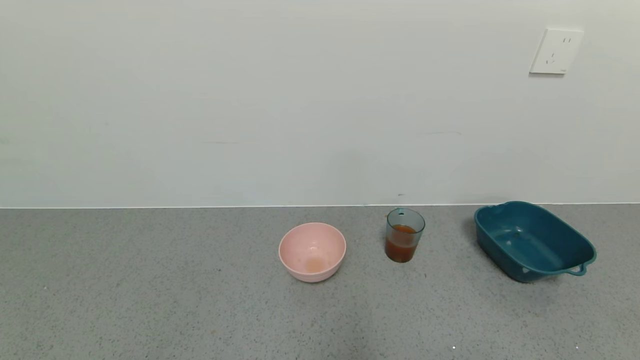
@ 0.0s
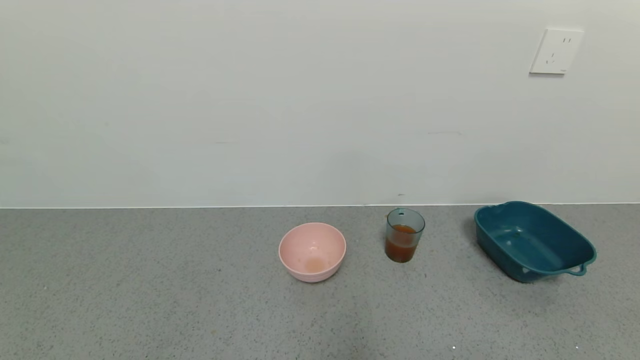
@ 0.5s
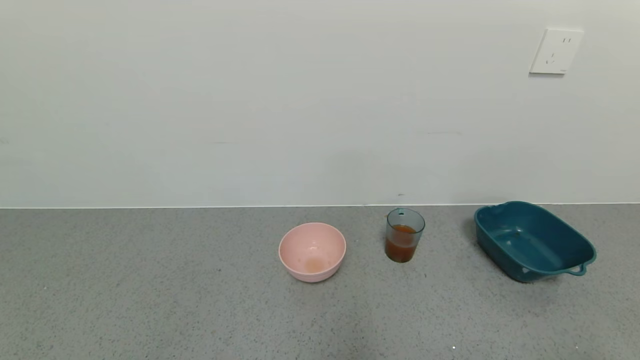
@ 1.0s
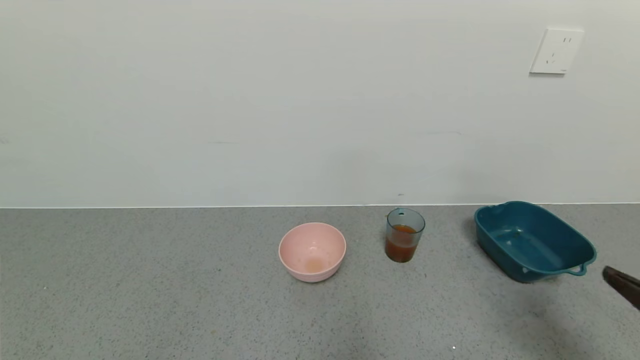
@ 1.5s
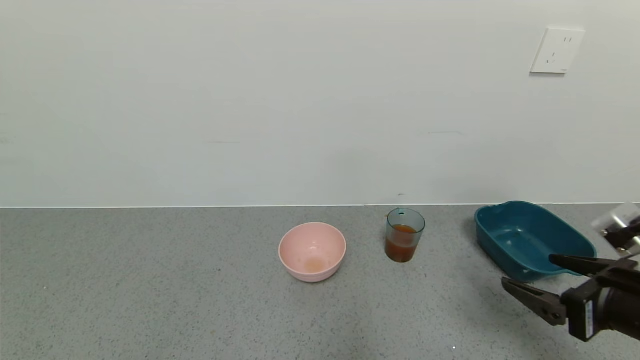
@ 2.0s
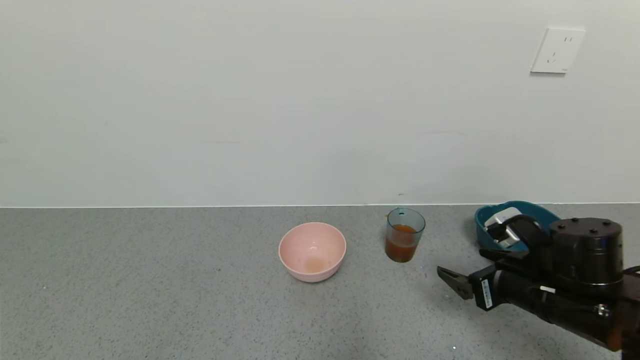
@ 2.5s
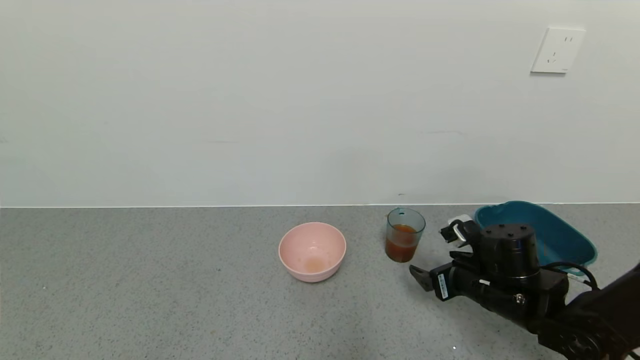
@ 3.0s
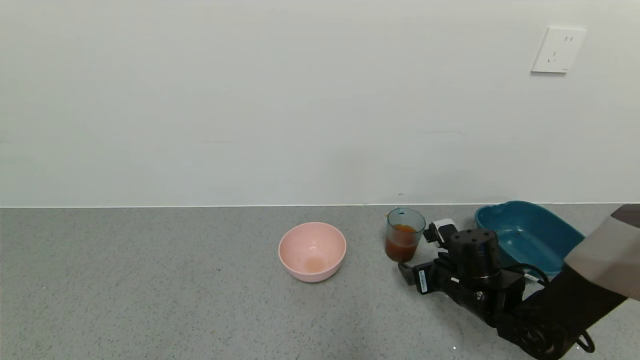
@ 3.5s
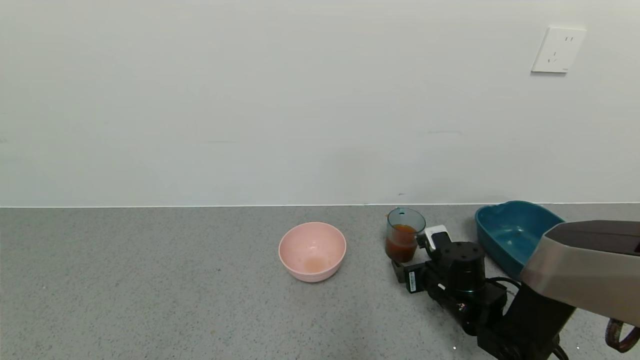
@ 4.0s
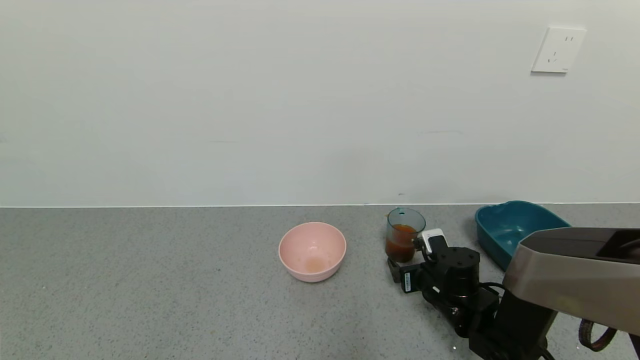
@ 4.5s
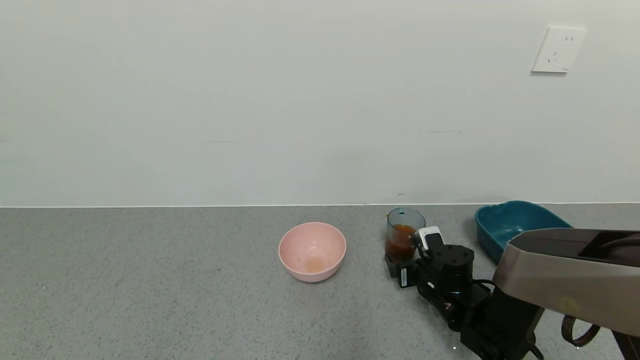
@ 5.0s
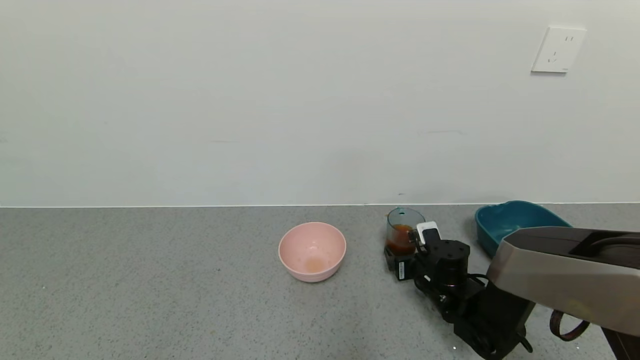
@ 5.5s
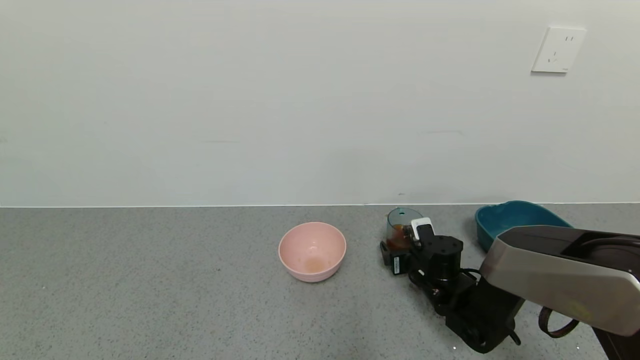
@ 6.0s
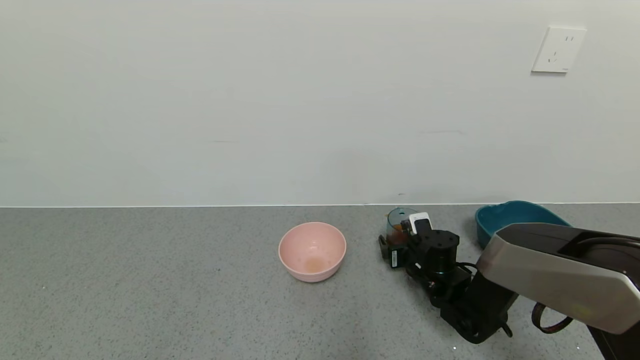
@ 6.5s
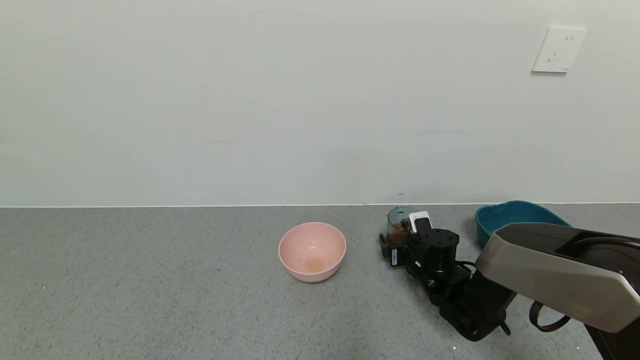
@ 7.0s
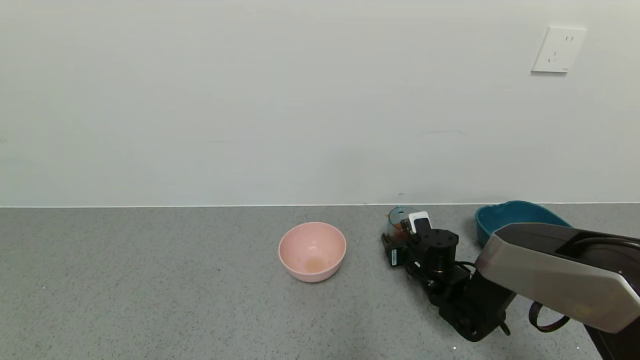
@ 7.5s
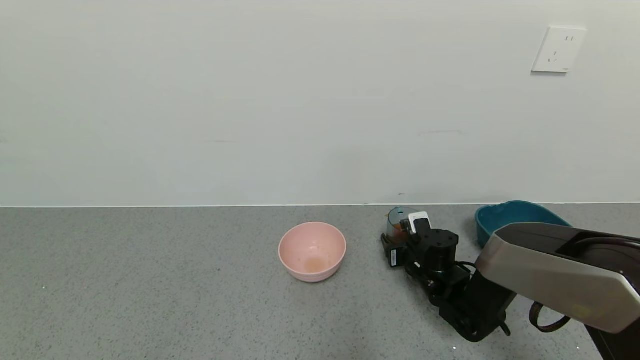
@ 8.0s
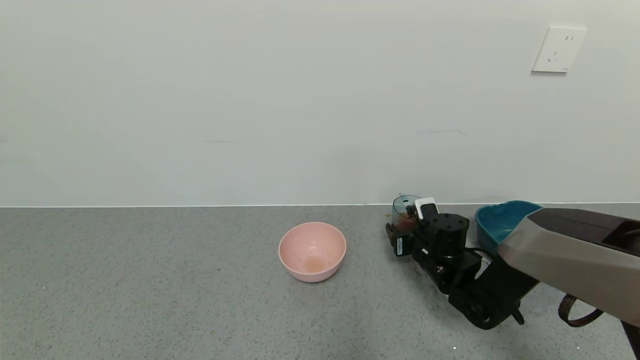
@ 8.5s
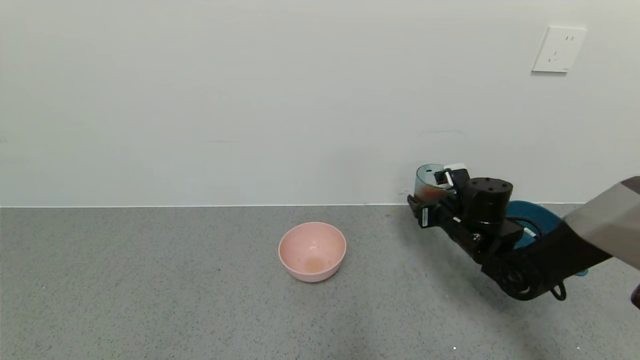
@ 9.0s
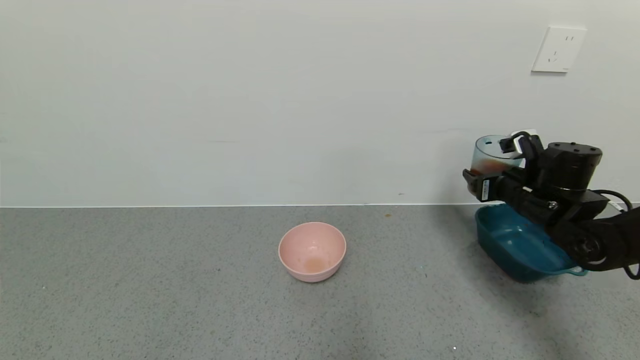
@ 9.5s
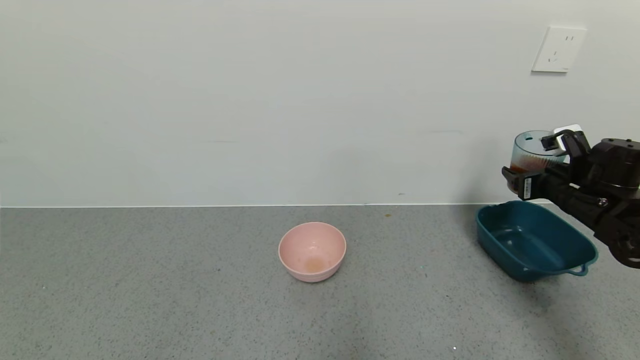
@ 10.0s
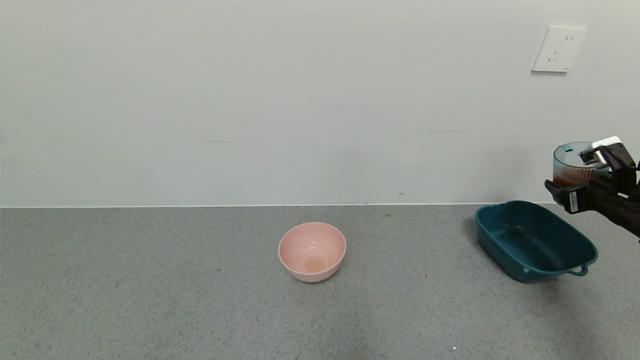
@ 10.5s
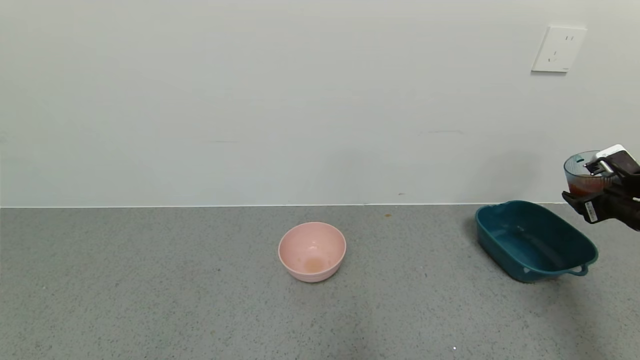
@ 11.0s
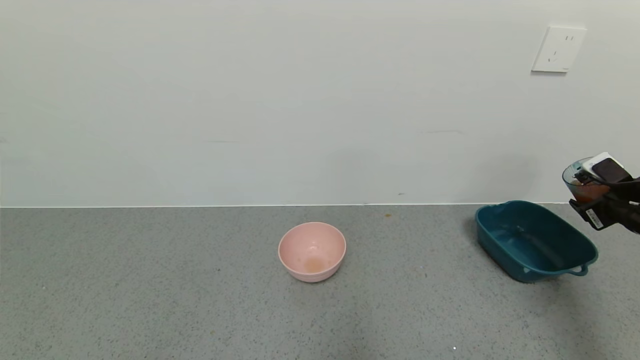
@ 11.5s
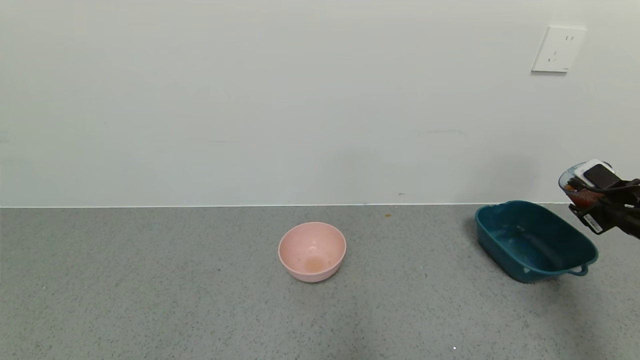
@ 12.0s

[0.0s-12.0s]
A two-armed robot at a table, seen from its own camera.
Task of the whole recording: use a gripper to pick up the cup and pour the liquid into a bowl or tray.
Step, 0.0s to 8.0s: Pick up blue cup filled with tea with right gripper.
0.0s to 2.0s: The right gripper is displaced forward and upward by some 20 cm.
2.0s to 4.0s: The right gripper travels downward, forward and to the left by some 25 cm.
4.0s to 6.0s: The right gripper shifts by about 5 cm.
6.0s to 8.0s: The right gripper closes its fingers.
8.0s to 10.0s: The right gripper is displaced to the right and upward by about 25 cm.
10.0s to 12.0s: The right gripper travels to the right by some 10 cm.

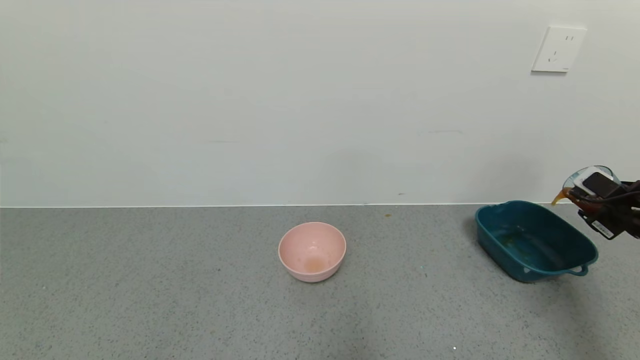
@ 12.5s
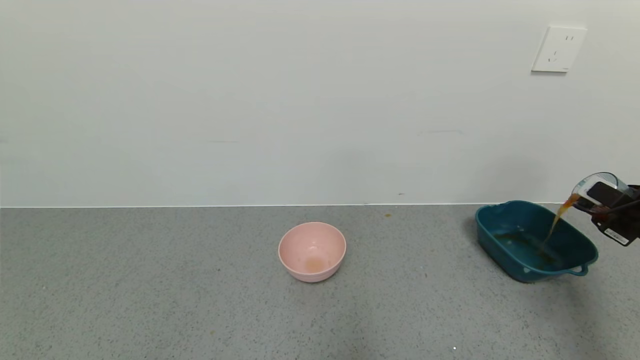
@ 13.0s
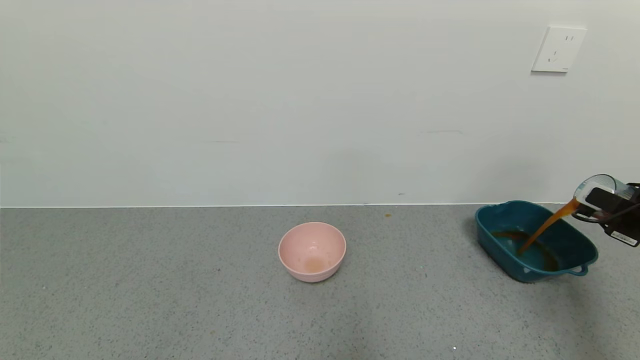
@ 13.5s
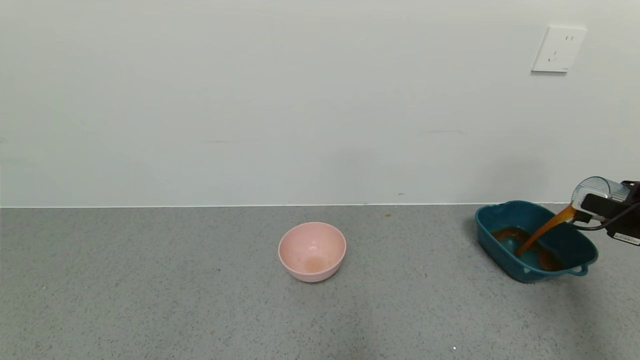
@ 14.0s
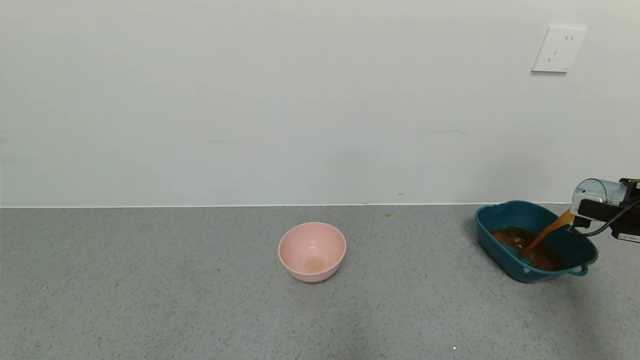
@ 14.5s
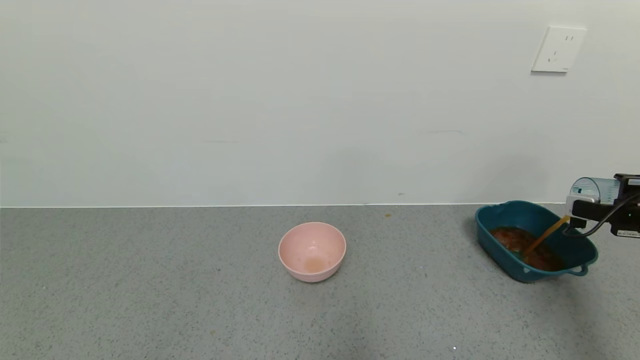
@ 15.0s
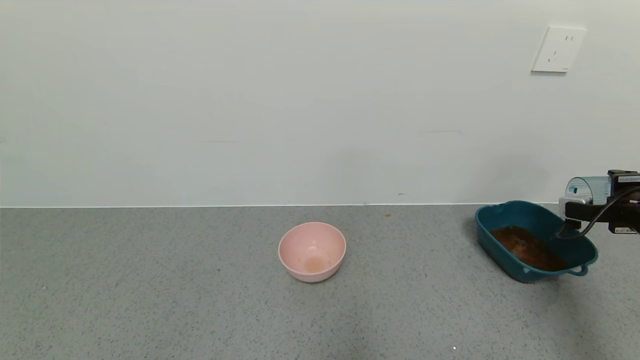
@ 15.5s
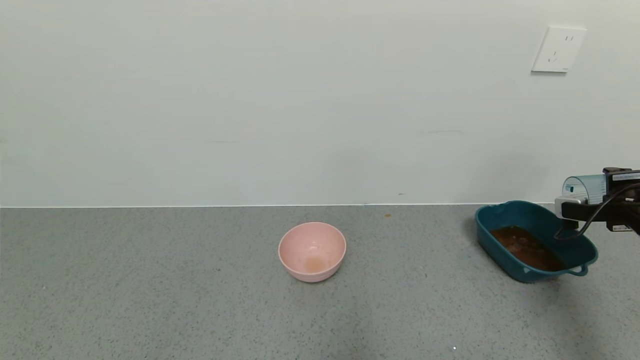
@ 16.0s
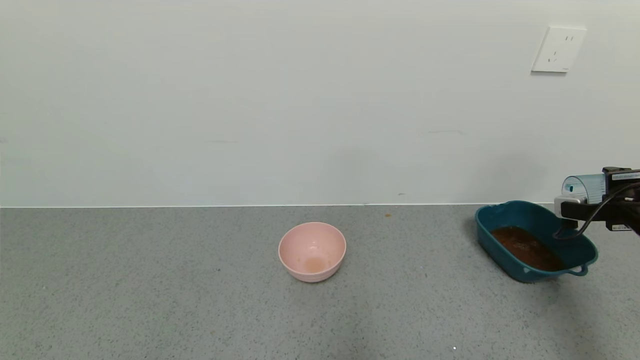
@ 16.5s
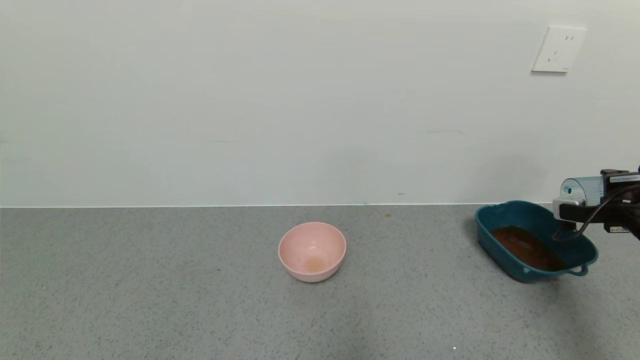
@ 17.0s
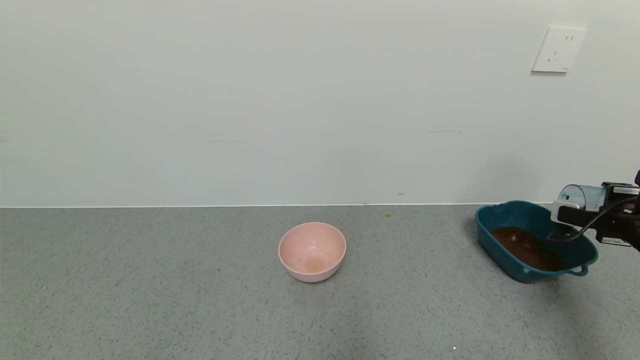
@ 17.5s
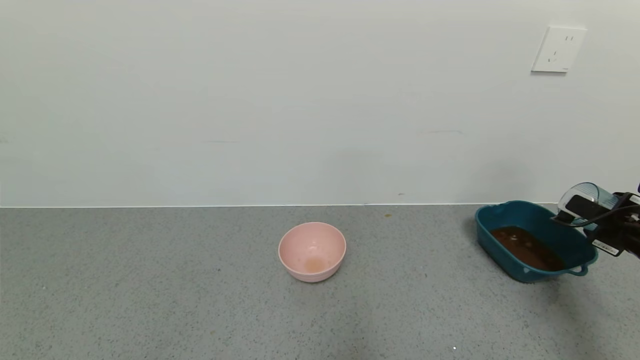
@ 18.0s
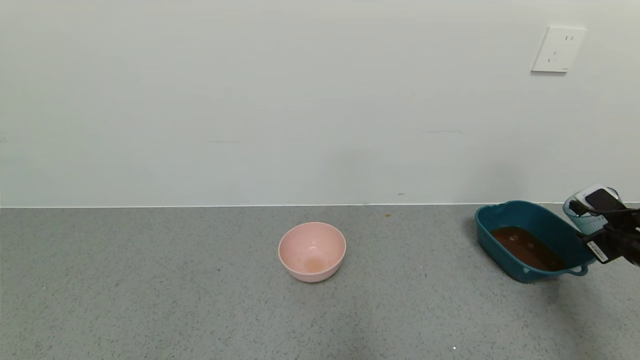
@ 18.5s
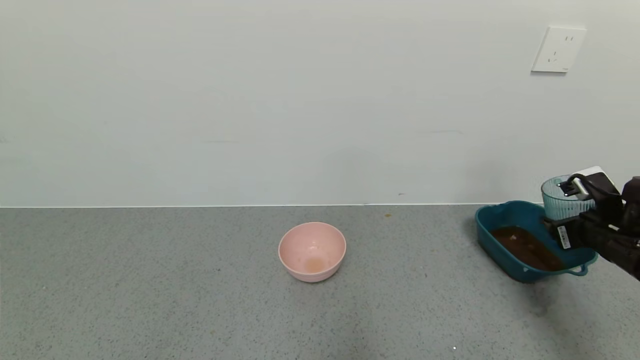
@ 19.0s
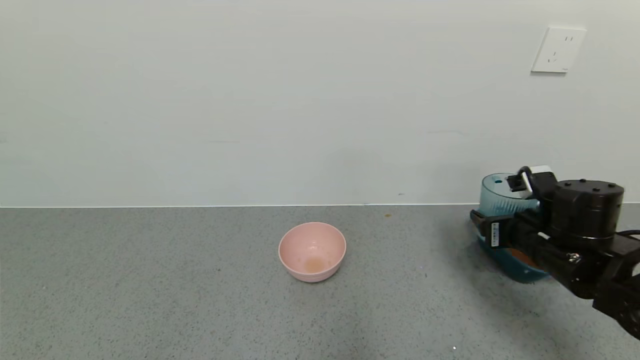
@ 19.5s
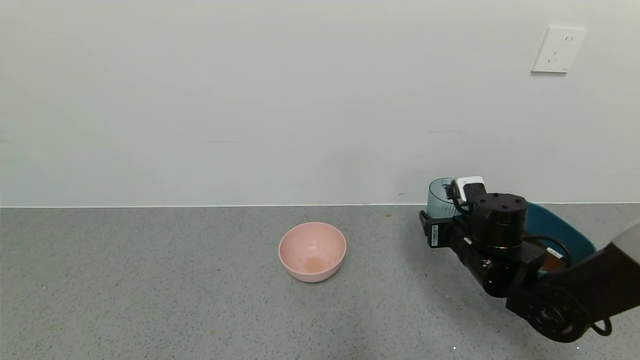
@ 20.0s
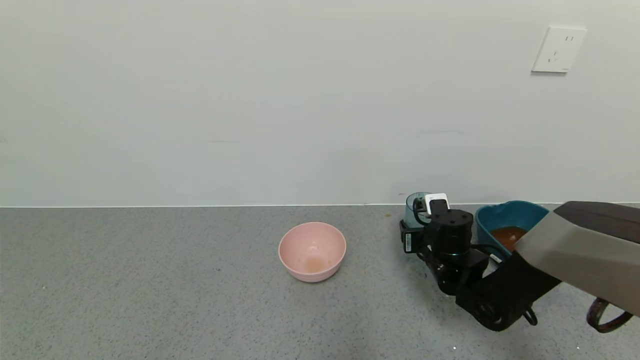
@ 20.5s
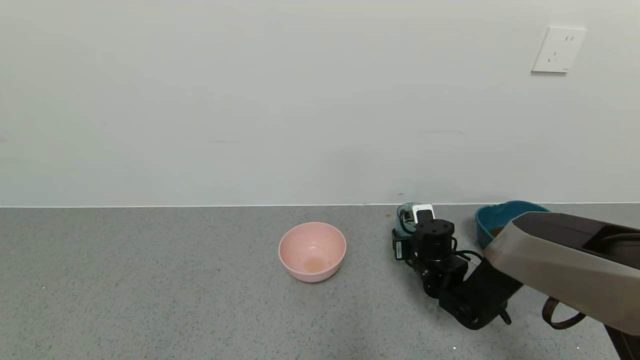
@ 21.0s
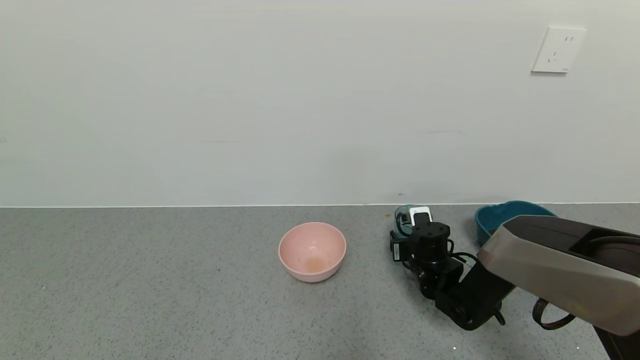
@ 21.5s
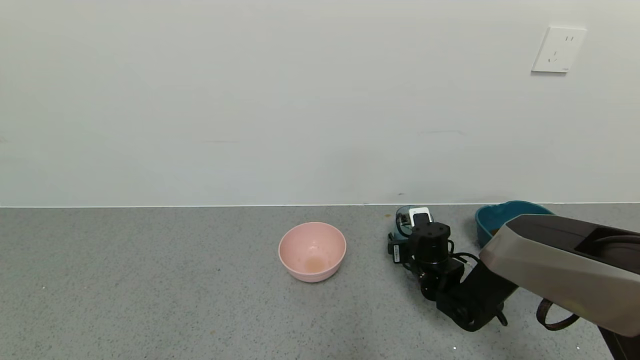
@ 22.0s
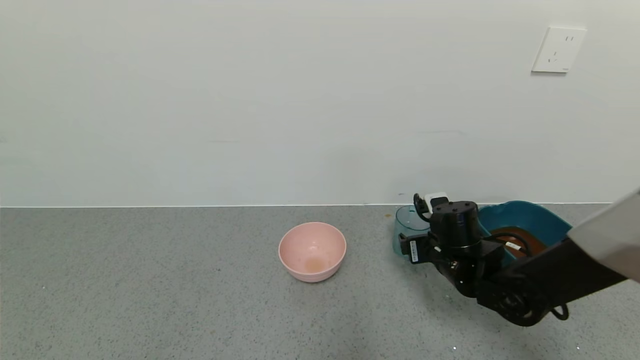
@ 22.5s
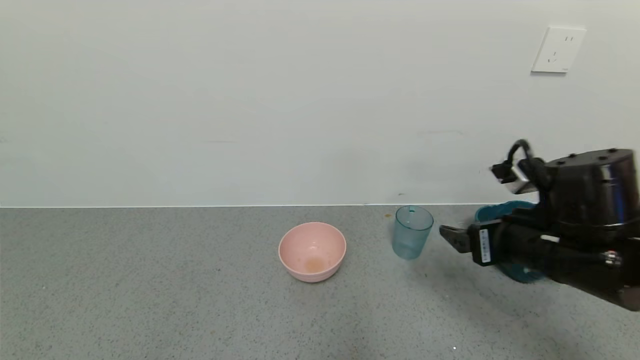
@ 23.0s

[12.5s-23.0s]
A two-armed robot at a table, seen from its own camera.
Task of the whole recording: use a gripper to pick up the cup and pour the liquid into a bowl or tray.
Step, 12.5s to 17.5s: Pour the tea into the blue basin with right gripper.
Step, 18.0s to 21.5s: Place blue cup with tea on the table with right gripper.
14.5s to 16.5s: The grippers make only small movements.
16.5s to 19.0s: The right gripper travels to the left by some 10 cm.
19.0s to 21.0s: The right gripper is displaced to the left, downward and forward by roughly 25 cm.
21.0s to 23.0s: The right gripper goes roughly 25 cm upward and backward, and opens.
